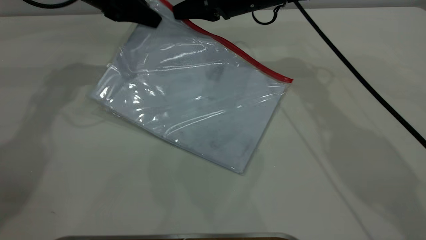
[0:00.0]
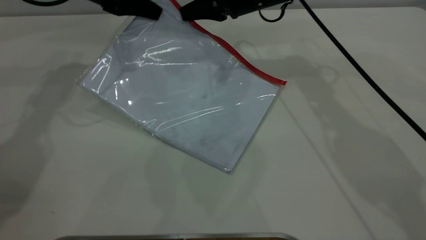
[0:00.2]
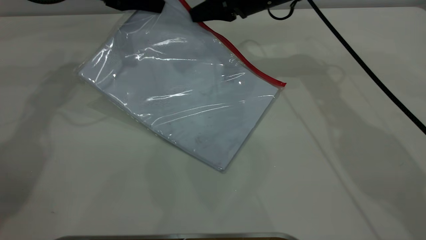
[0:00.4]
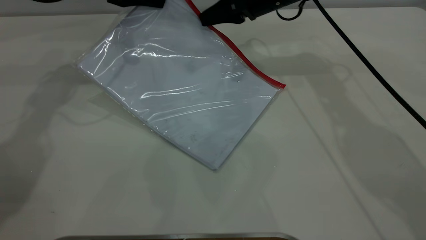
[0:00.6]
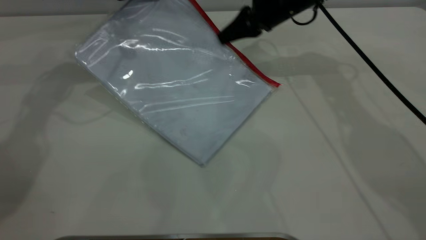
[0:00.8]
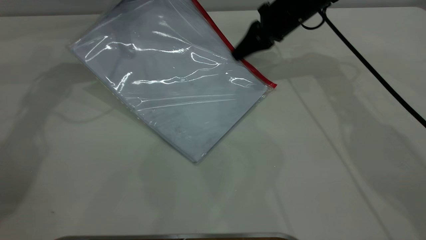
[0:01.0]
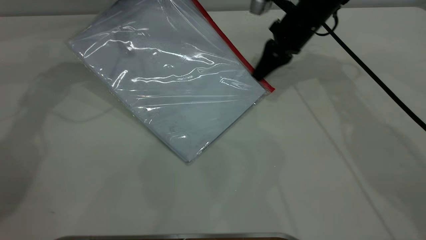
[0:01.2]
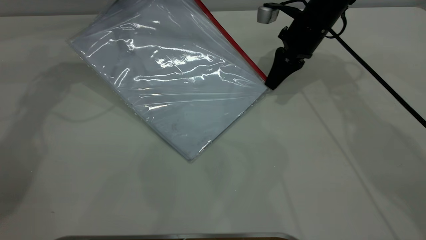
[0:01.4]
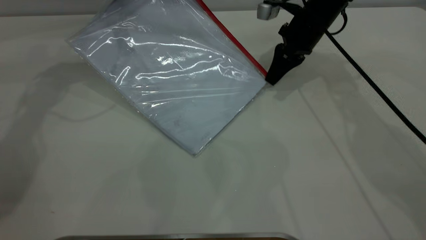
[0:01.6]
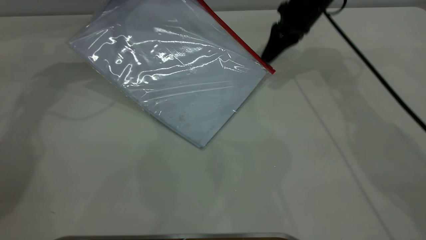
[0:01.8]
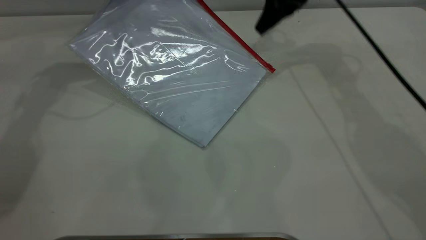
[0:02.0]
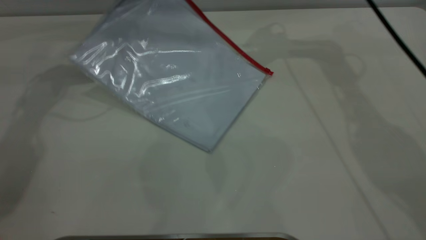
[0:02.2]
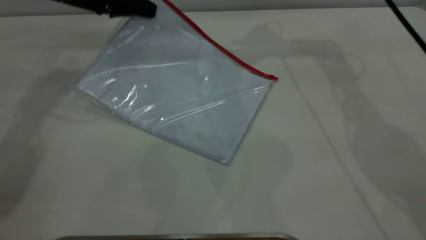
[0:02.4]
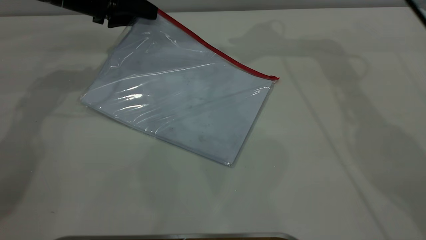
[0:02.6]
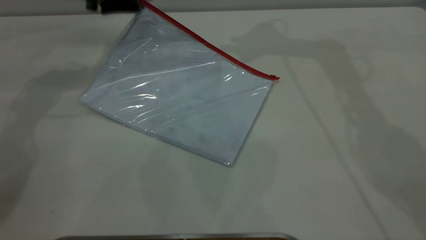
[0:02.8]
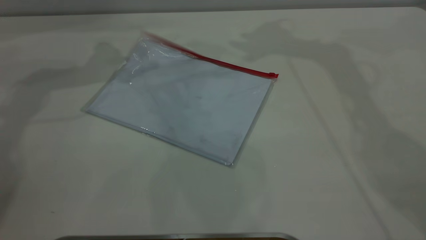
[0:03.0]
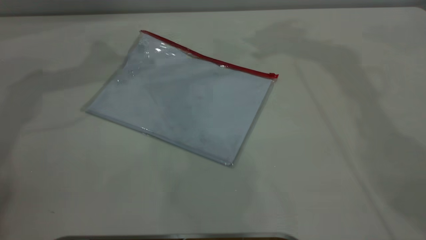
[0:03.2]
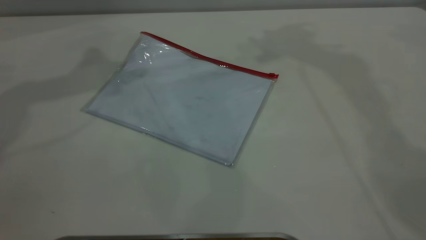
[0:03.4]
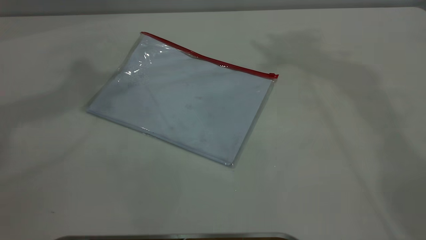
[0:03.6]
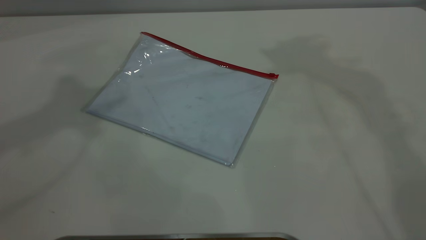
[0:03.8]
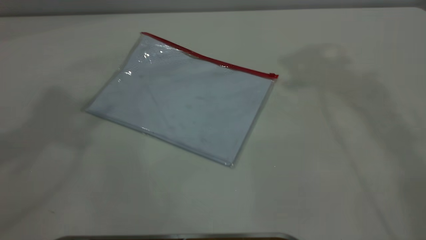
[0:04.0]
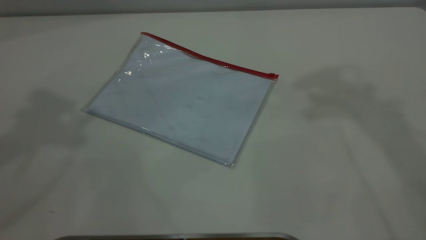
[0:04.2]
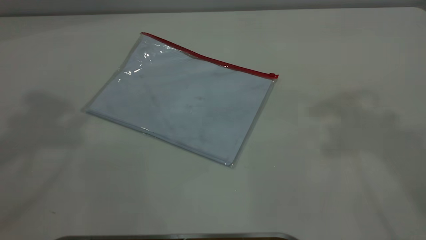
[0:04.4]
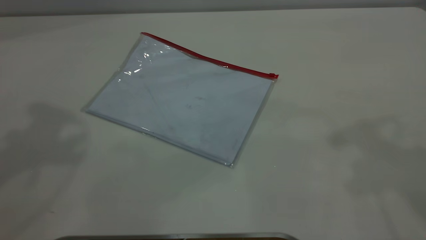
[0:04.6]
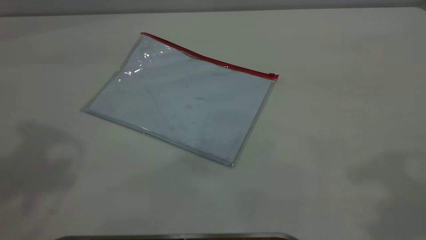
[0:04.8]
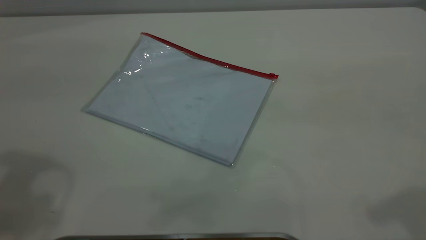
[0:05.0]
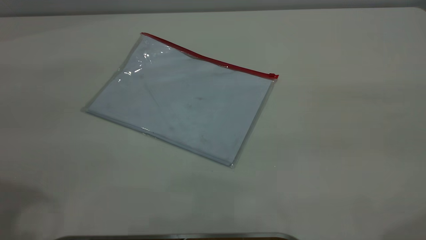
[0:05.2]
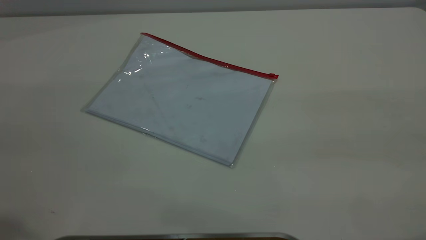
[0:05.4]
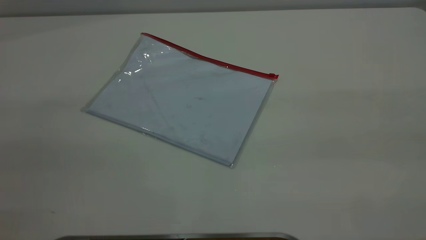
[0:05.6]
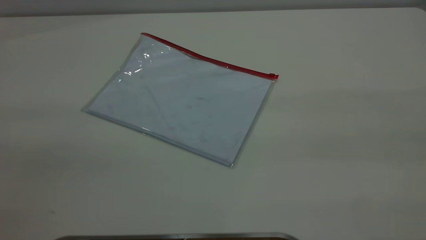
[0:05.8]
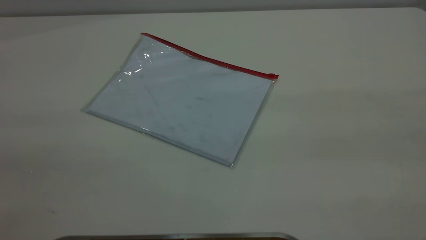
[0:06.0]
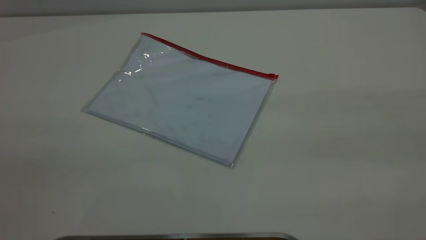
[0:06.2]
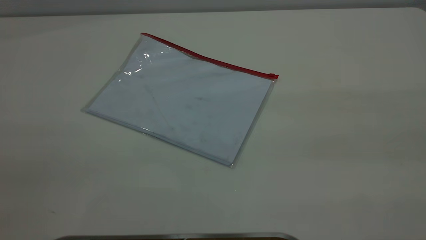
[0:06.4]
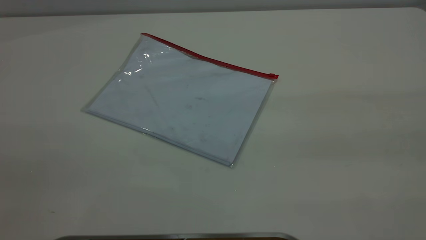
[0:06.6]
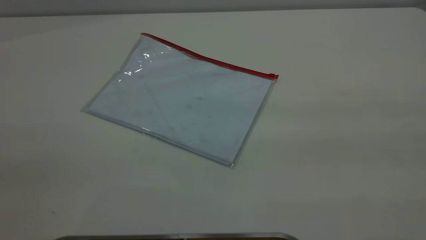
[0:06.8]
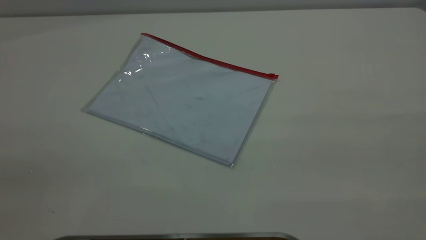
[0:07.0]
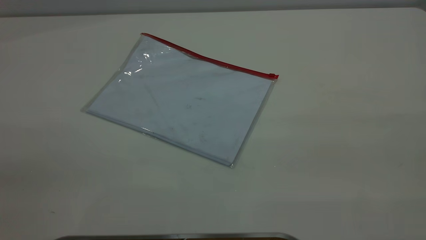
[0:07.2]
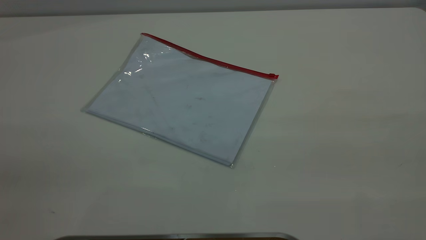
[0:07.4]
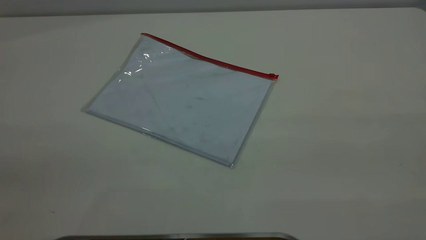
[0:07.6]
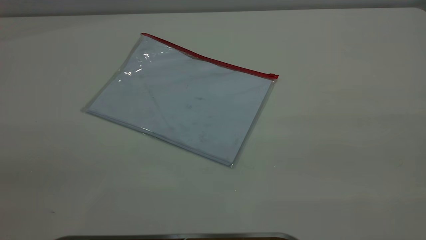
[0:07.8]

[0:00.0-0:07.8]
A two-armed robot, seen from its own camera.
Step, 0:00.0 to 0:02.0: Pulling up the zipper on the transparent plastic bag with the right gripper to close it.
Step, 0:02.2 to 0:03.0: Place the transparent plastic bag.
0:00.0 to 0:01.6: The right gripper travels to the right by some 10 cm.
0:01.6 to 0:03.2: The left gripper goes roughly 15 cm upward, and opens up. The right gripper goes some 35 cm upward, and opens up.
